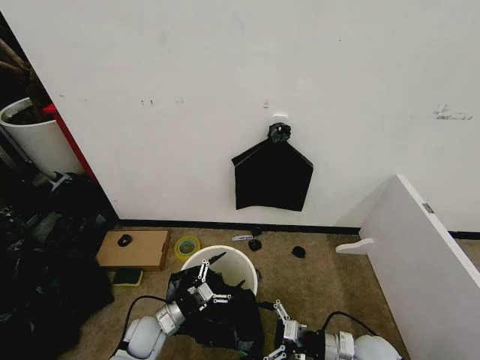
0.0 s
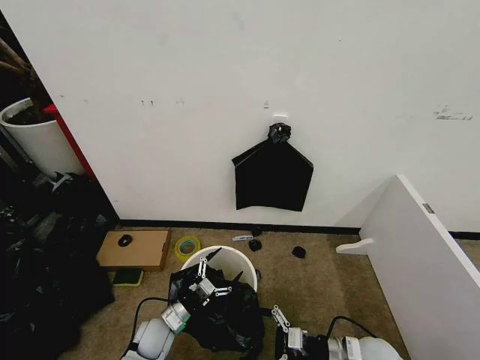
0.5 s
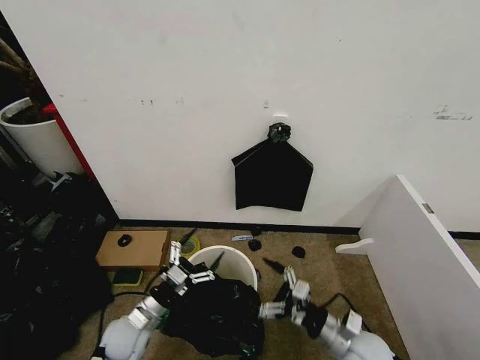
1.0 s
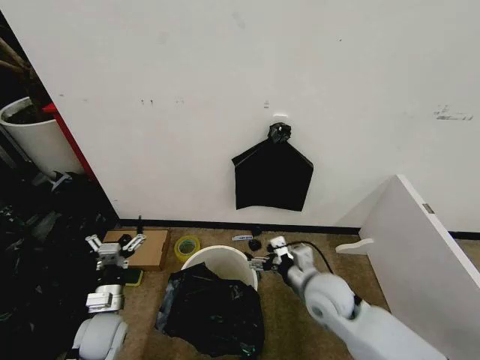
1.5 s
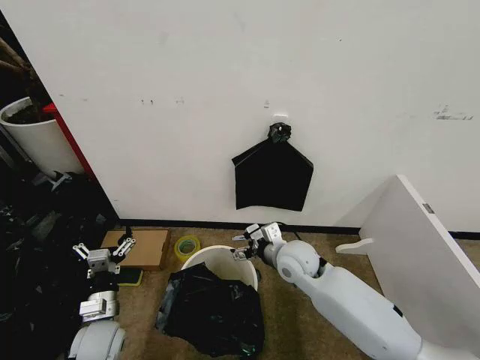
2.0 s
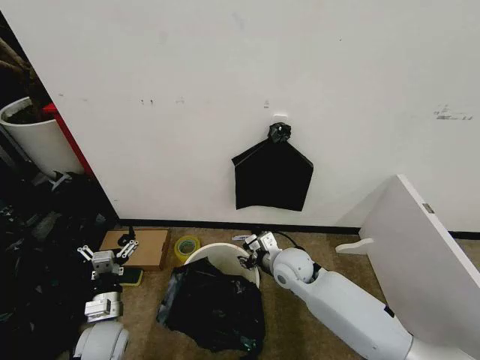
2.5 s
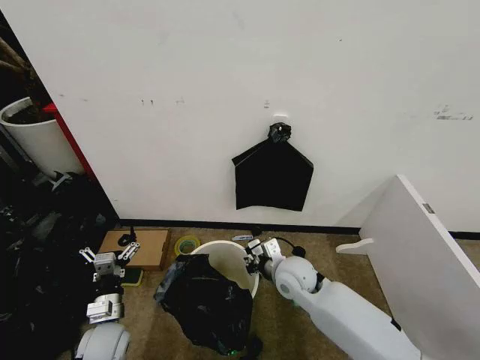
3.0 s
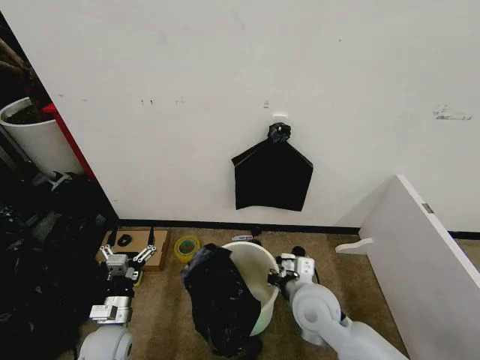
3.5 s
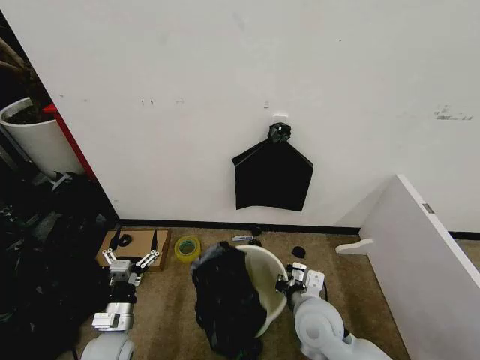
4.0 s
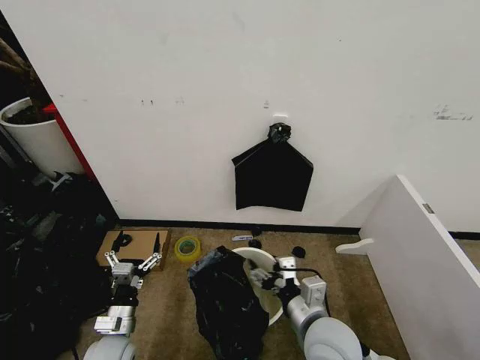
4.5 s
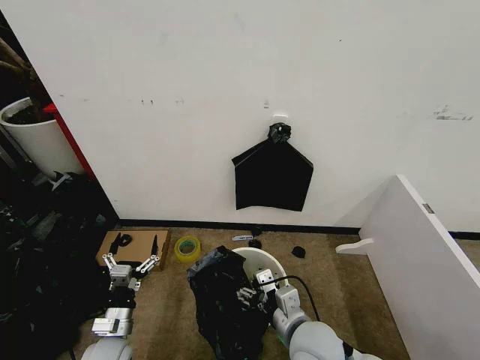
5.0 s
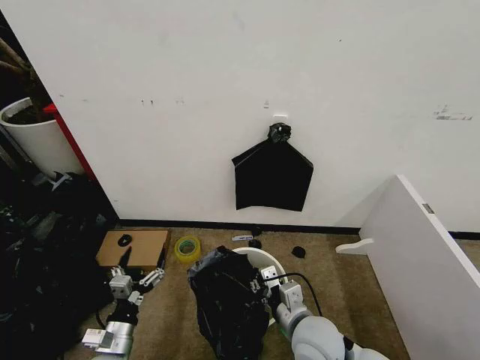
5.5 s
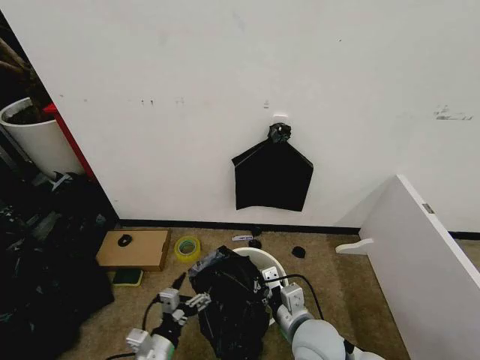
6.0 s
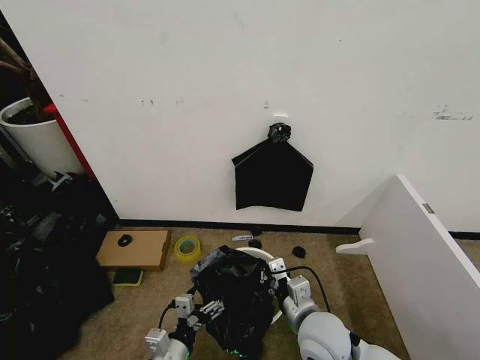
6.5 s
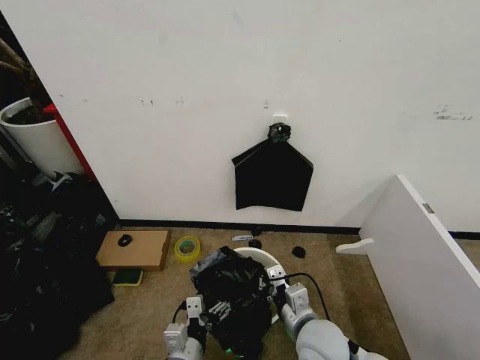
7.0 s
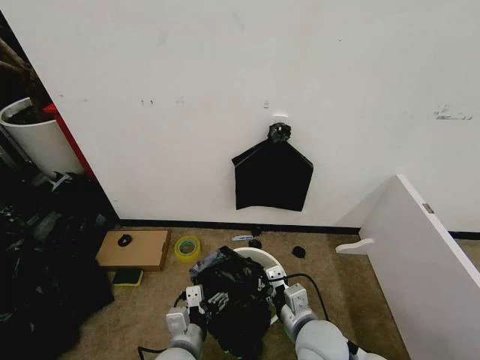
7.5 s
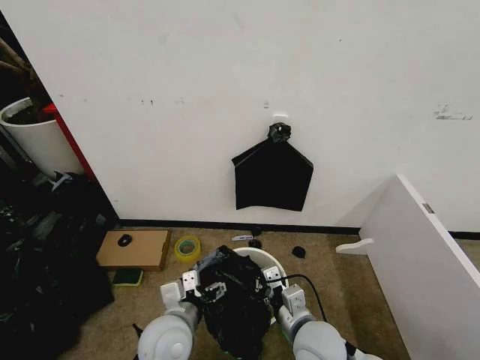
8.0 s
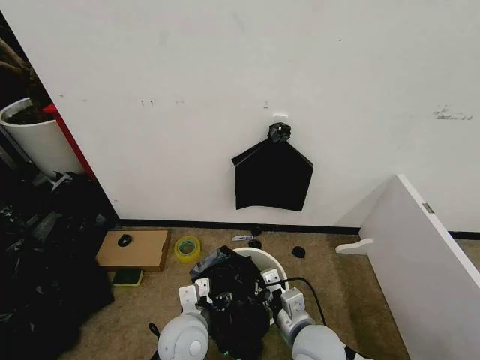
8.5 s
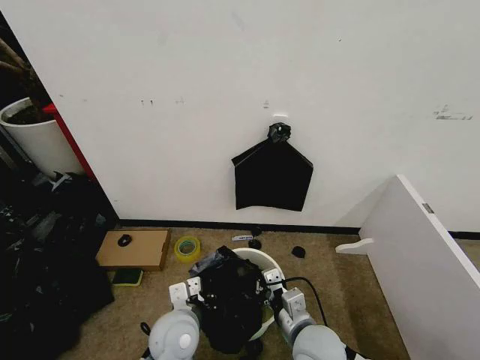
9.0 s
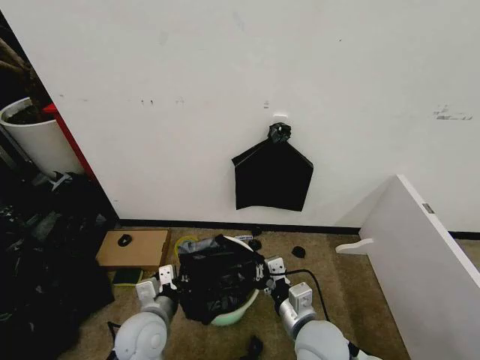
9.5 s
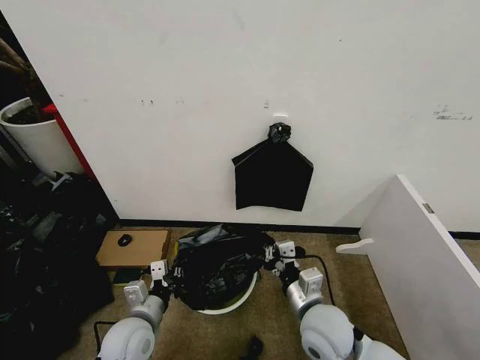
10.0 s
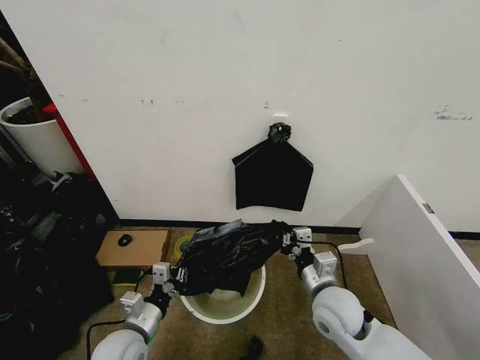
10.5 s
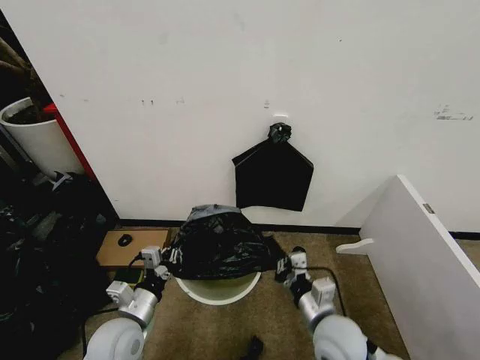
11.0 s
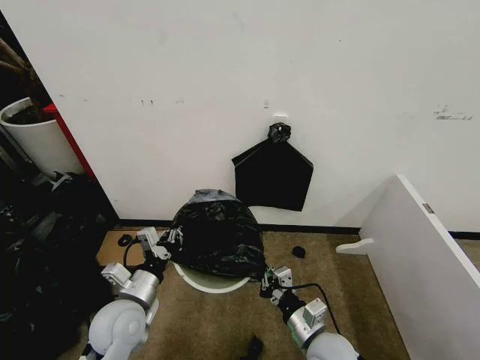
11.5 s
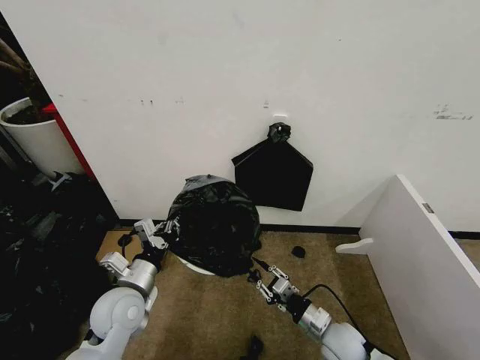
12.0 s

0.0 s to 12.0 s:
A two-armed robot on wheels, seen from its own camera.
Task of the whole recording: Place the garbage bag over the trash bin.
0.0 to 2.0 s: The left gripper is displaced upward and to the left by some 10 cm. The right gripper heads forward, to the left and upward, covering roughly 25 cm.
2.0 to 4.0 s: The right gripper goes roughly 15 cm backward, and closes its fingers.
4.0 to 6.0 s: The right gripper opens, then closes once more, while the left gripper goes approximately 10 cm to the right and backward.
6.0 to 8.0 s: The left gripper heads upward, to the right and forward, covering approximately 15 cm.
8.0 to 10.0 s: The left gripper moves to the left, approximately 10 cm, and closes up.
10.0 to 12.0 s: The right gripper shifts roughly 15 cm downward and to the right; the left gripper moves upward, about 5 cm.

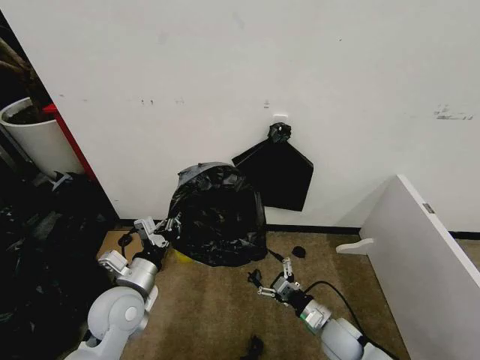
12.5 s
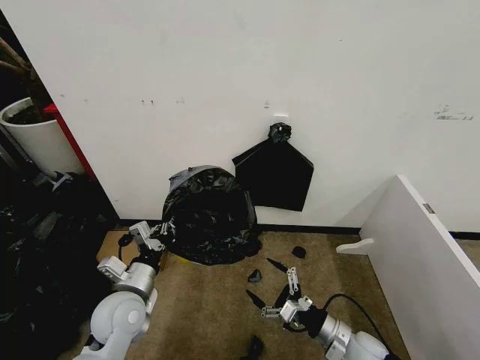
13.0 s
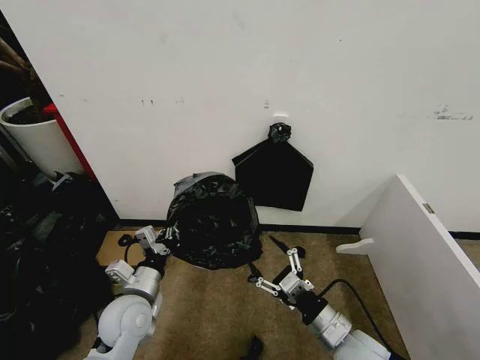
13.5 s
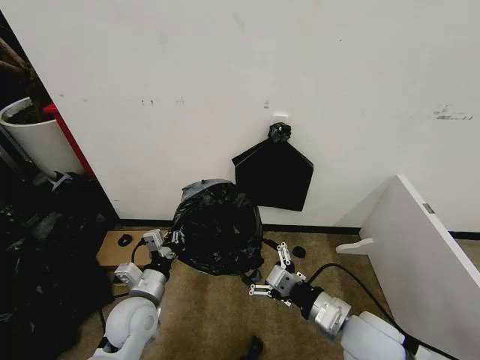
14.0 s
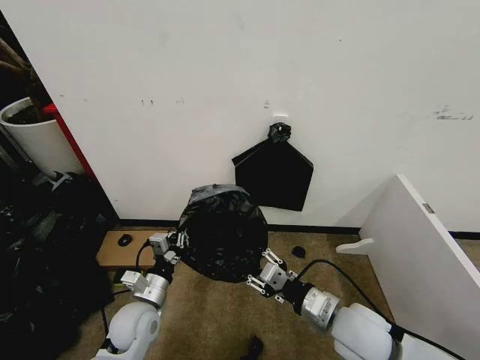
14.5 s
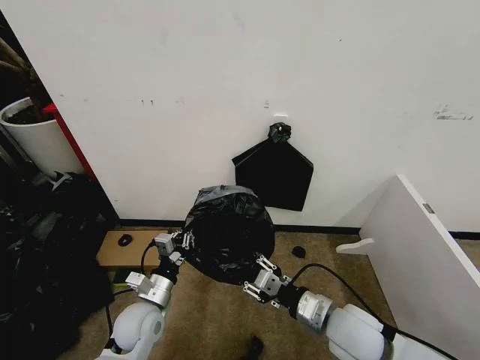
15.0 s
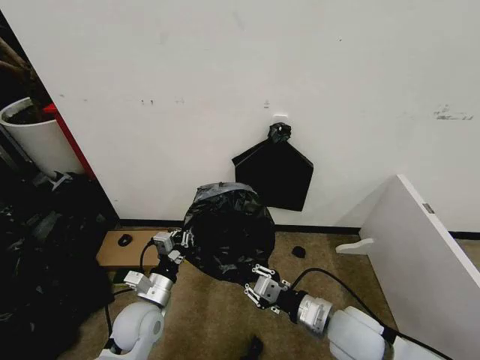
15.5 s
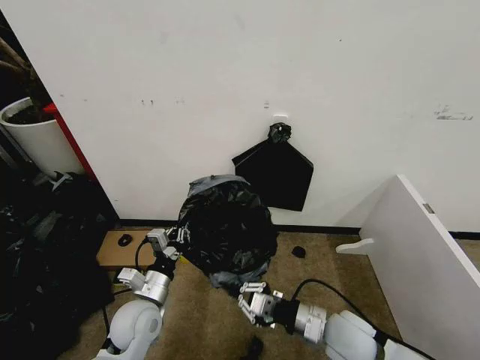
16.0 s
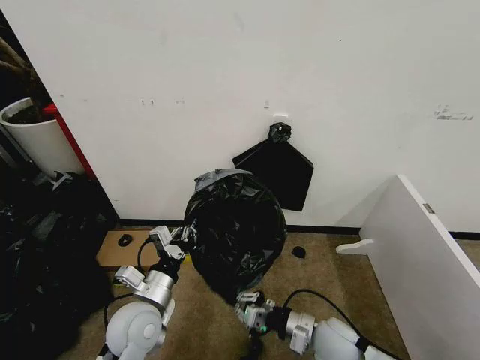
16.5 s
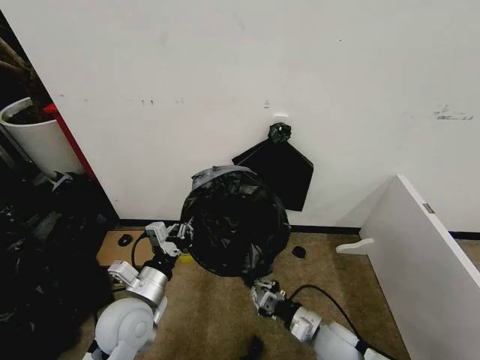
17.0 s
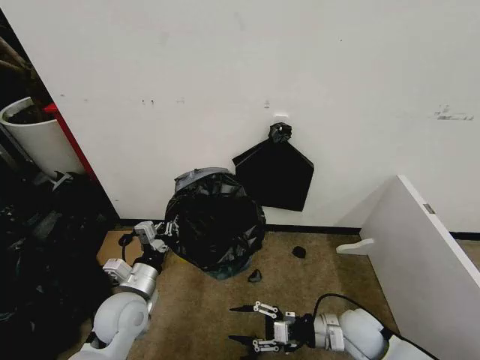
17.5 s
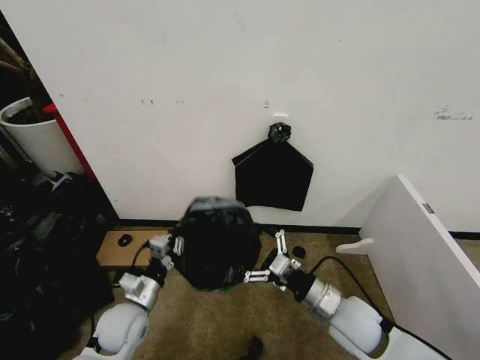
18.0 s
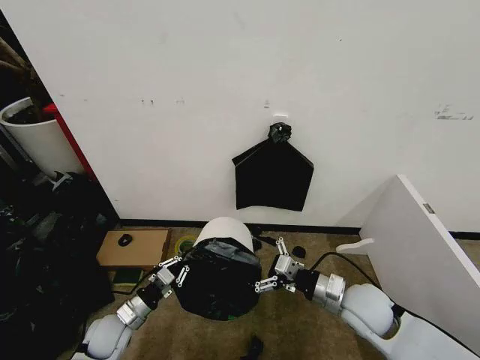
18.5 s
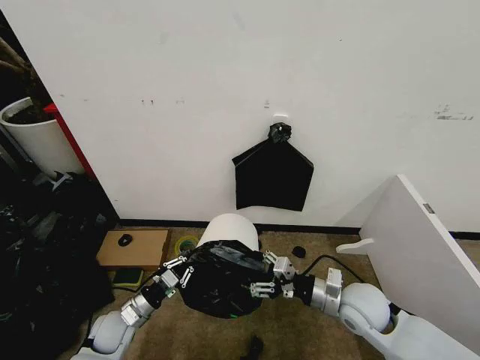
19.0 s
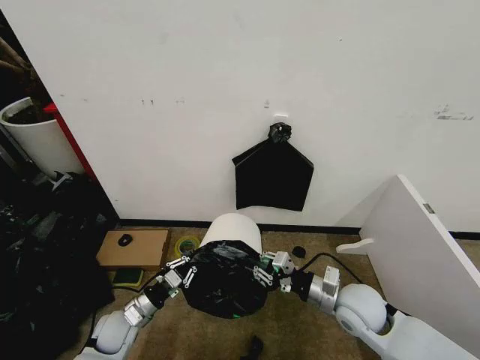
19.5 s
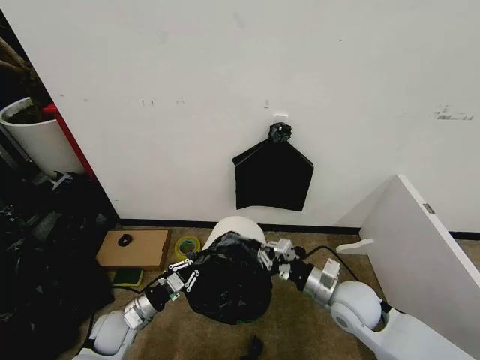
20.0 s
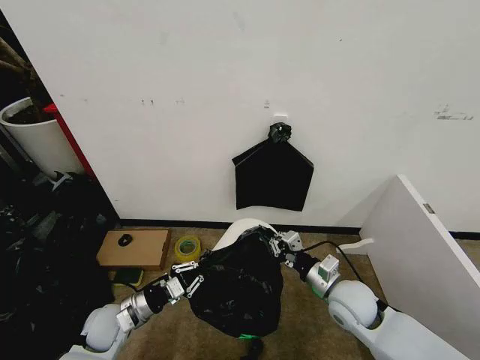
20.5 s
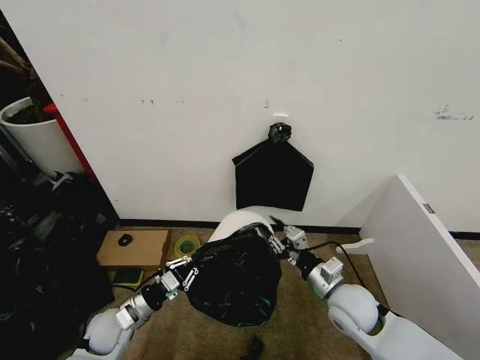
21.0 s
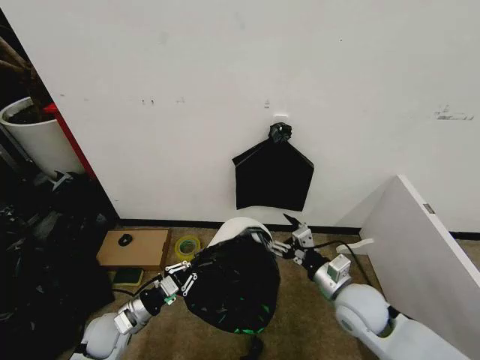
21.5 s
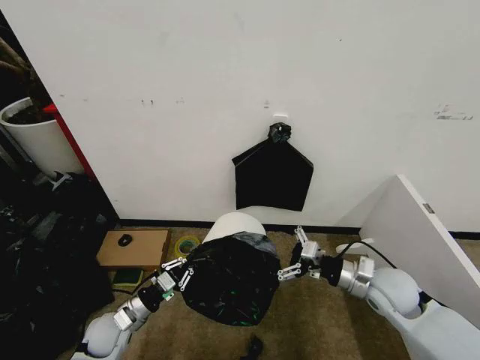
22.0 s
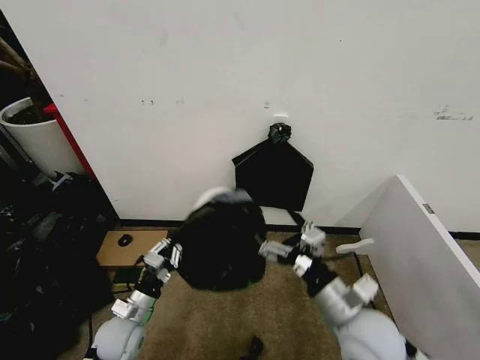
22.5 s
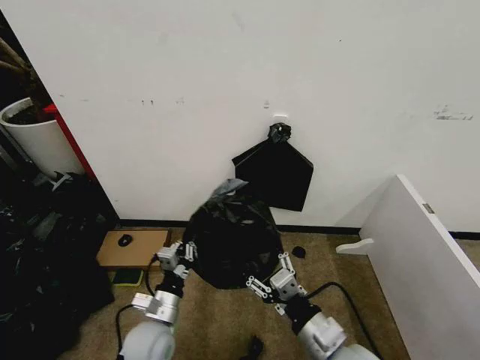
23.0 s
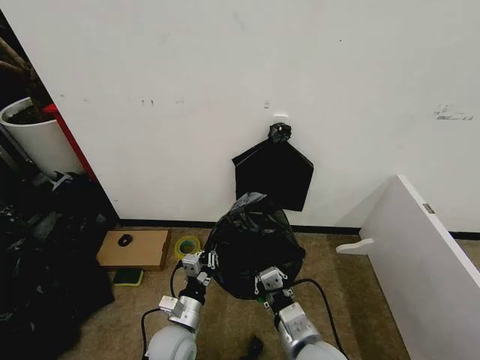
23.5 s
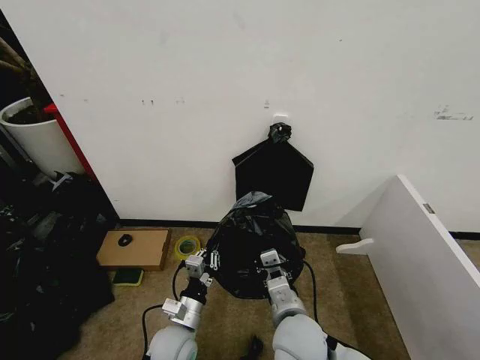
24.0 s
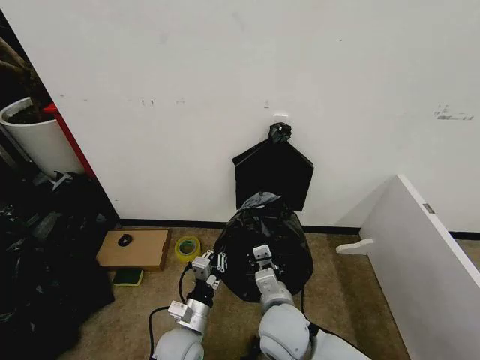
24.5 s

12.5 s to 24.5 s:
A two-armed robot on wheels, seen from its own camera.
Task of the whole recording: Place the garbage bag over the trash bin.
12.5 to 14.5 s: The right gripper shifts about 20 cm upward, and closes its fingers. The left gripper moves downward, some 5 cm.
14.5 to 16.5 s: The right gripper is displaced downward by about 10 cm, and closes up. The left gripper moves approximately 5 cm.
16.5 to 18.5 s: The left gripper heads downward and to the left, covering some 20 cm. The right gripper is displaced upward, to the right and forward by roughly 10 cm, and opens up.
18.5 to 20.5 s: The right gripper closes.
20.5 to 22.5 s: The right gripper heads backward and upward, covering approximately 10 cm, reaches roughly 5 cm to the right, then returns, and opens its fingers.
22.5 to 24.5 s: The right gripper goes some 15 cm to the left and downward, and closes; the left gripper is displaced to the right by some 15 cm.

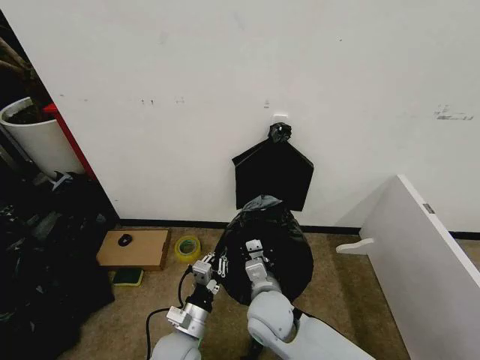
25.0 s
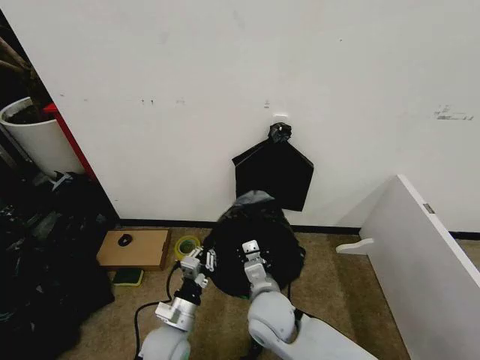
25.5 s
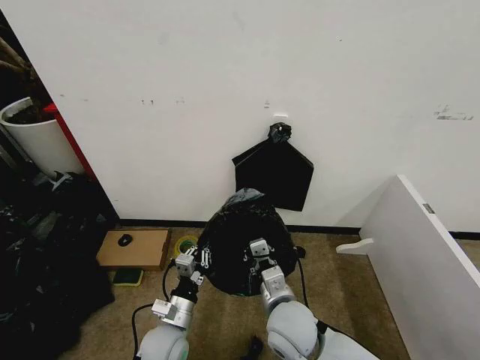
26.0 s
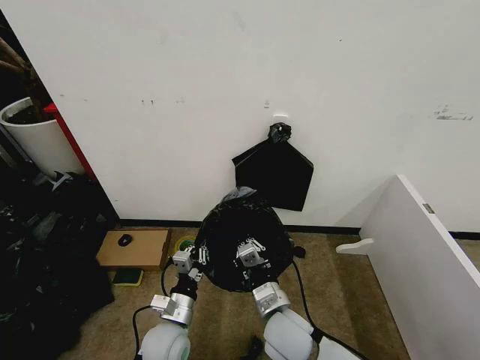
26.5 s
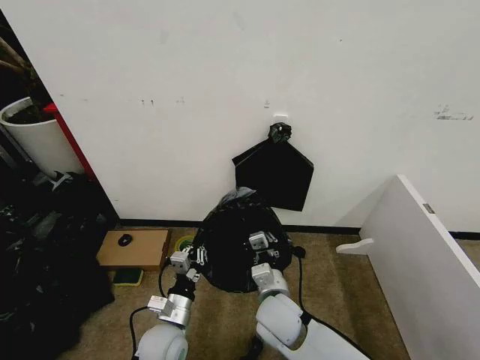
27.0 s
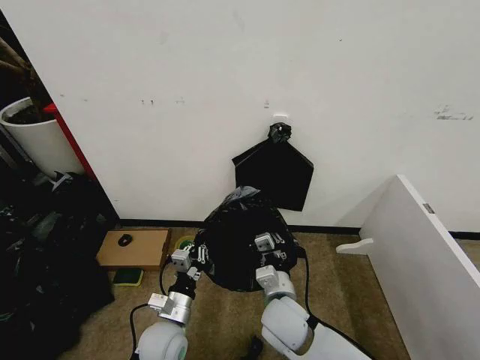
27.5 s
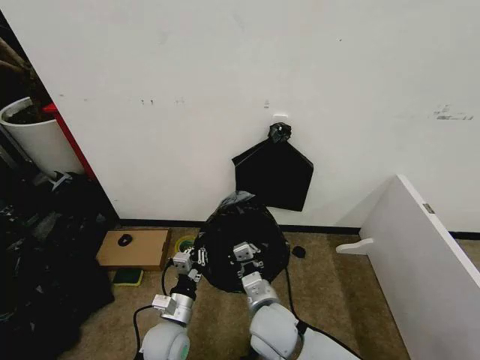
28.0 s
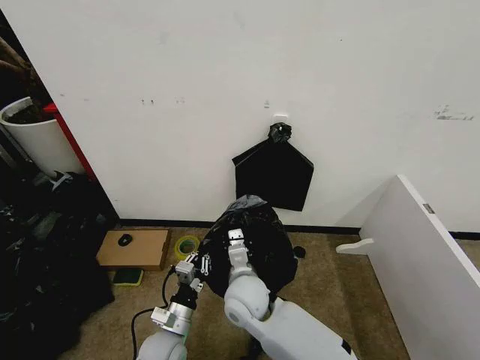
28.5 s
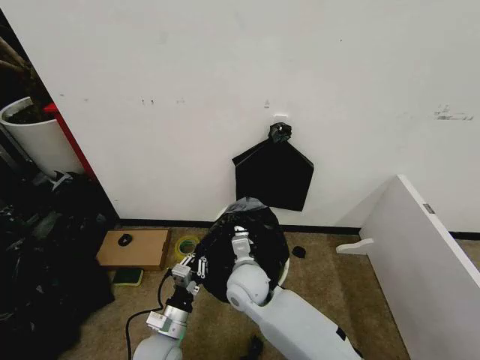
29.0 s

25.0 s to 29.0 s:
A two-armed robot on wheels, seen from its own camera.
Task of the whole recording: Place the garbage bag over the trash bin.
27.0 to 29.0 s: The right gripper goes roughly 10 cm forward and to the left.
